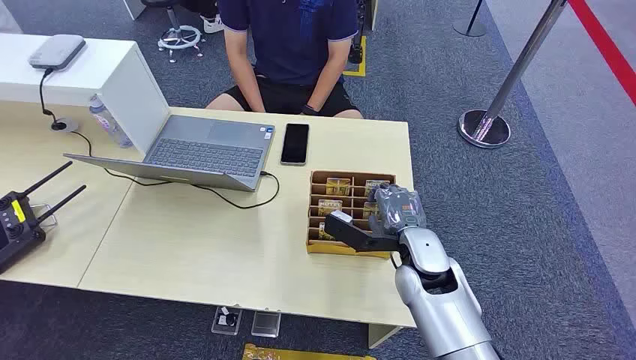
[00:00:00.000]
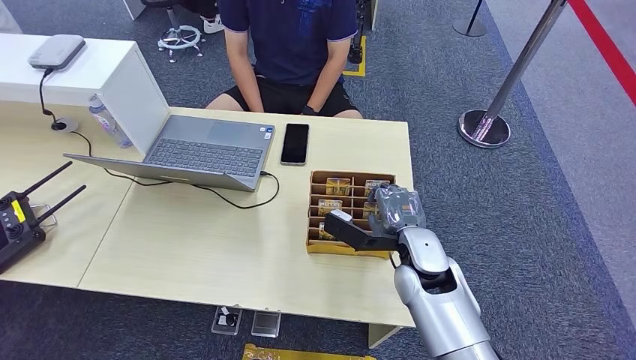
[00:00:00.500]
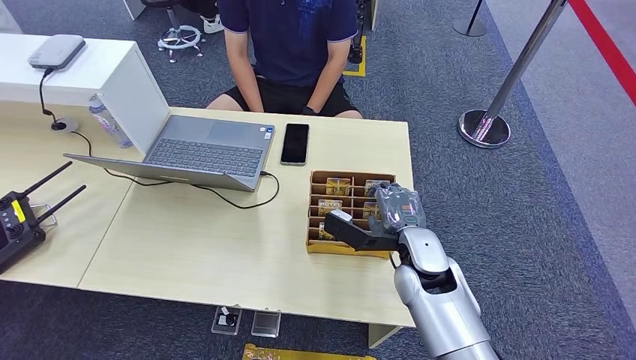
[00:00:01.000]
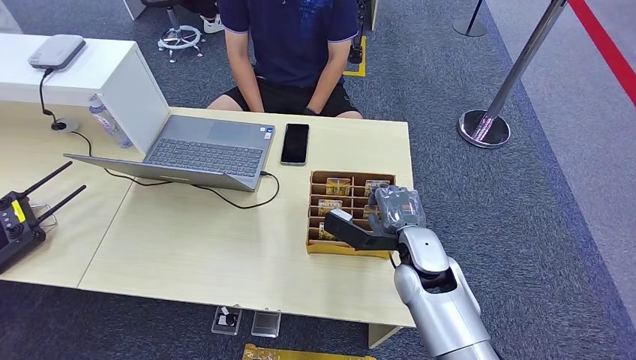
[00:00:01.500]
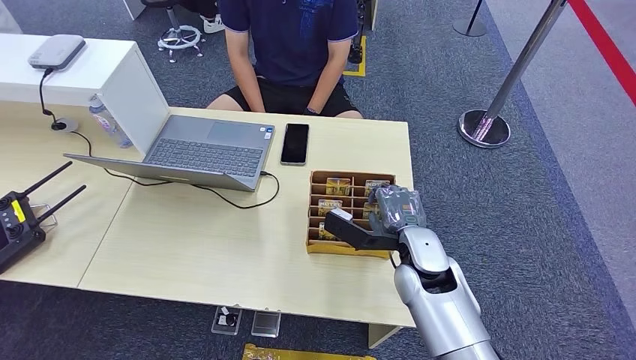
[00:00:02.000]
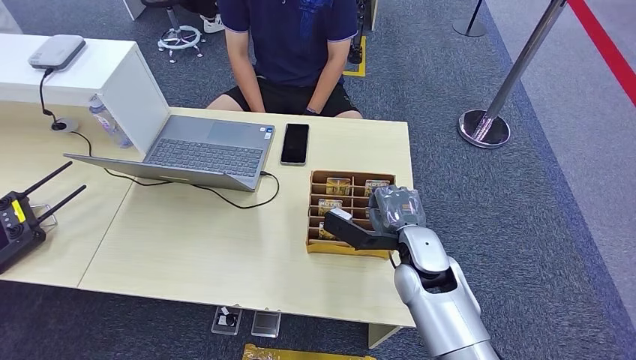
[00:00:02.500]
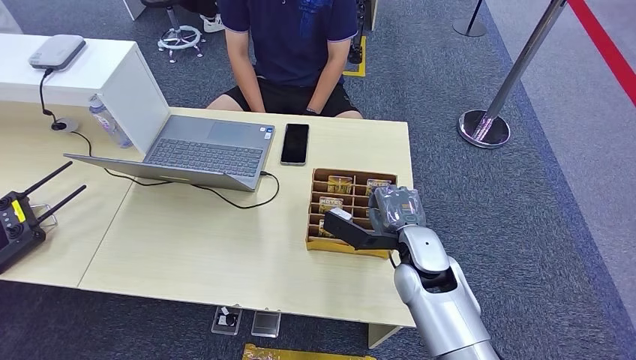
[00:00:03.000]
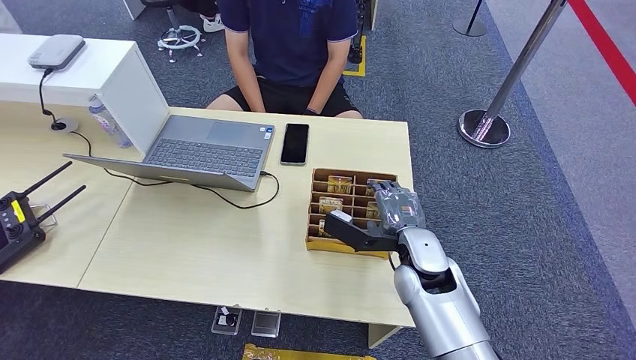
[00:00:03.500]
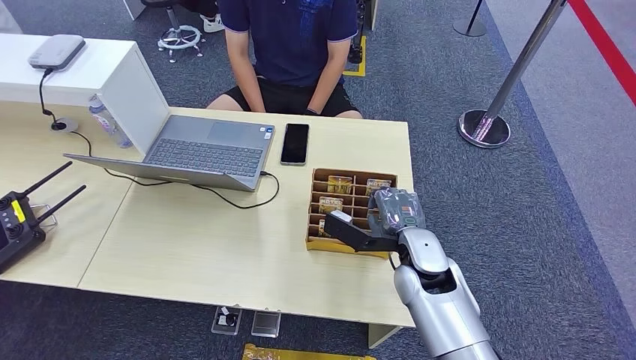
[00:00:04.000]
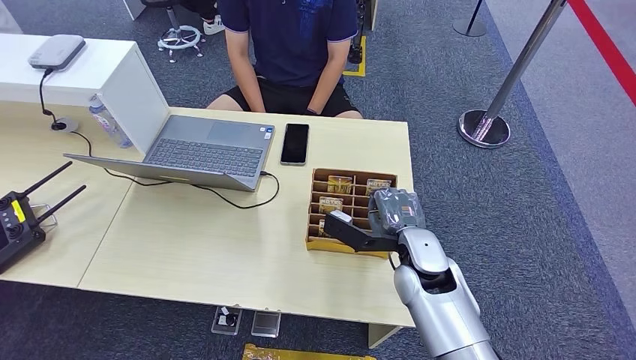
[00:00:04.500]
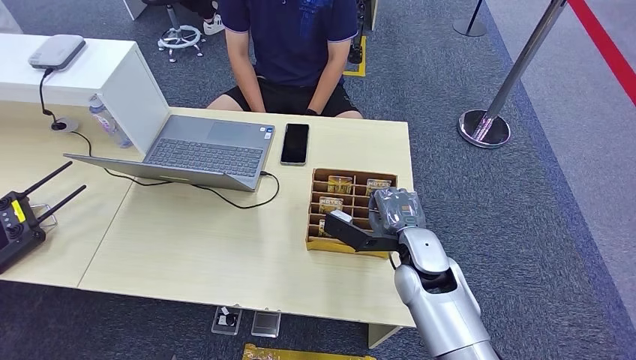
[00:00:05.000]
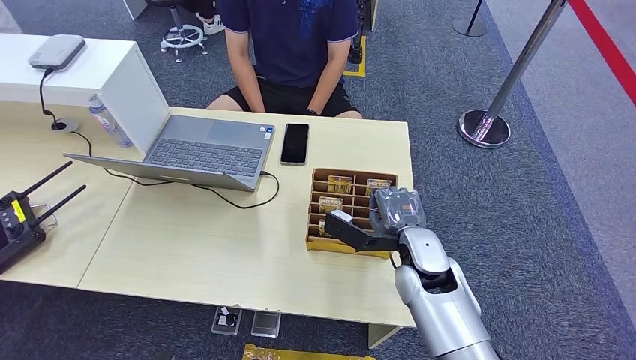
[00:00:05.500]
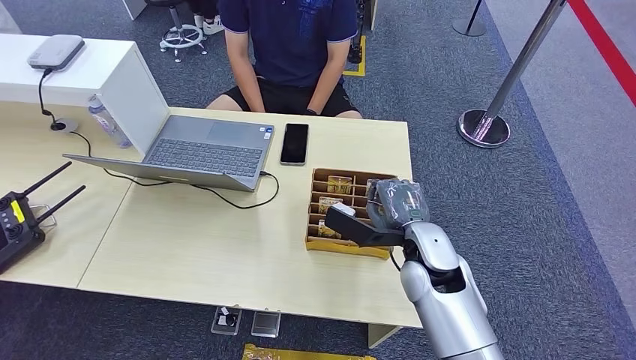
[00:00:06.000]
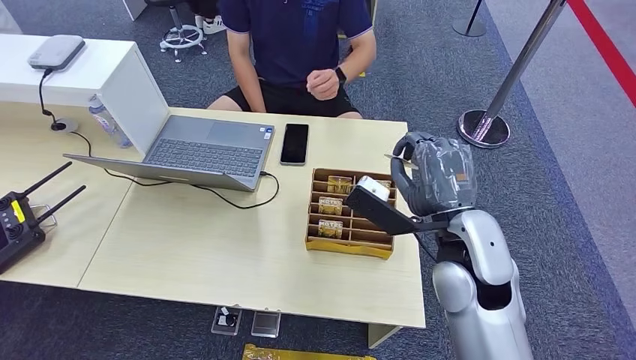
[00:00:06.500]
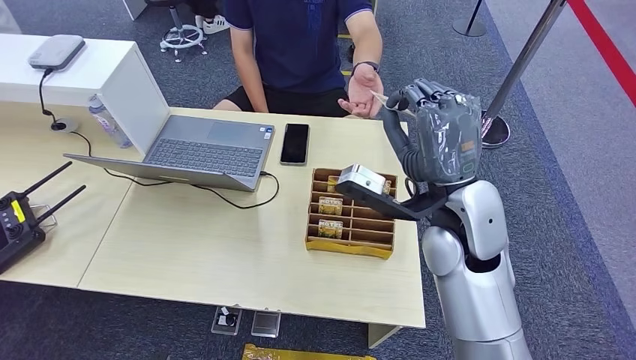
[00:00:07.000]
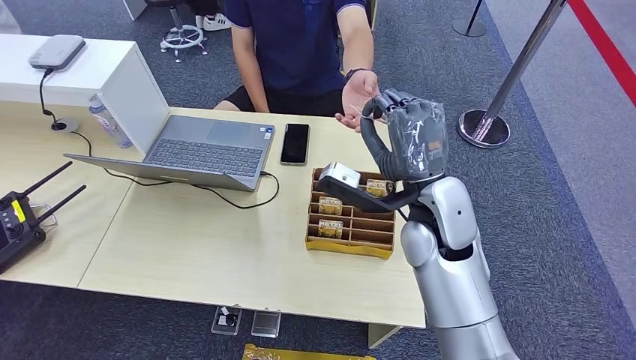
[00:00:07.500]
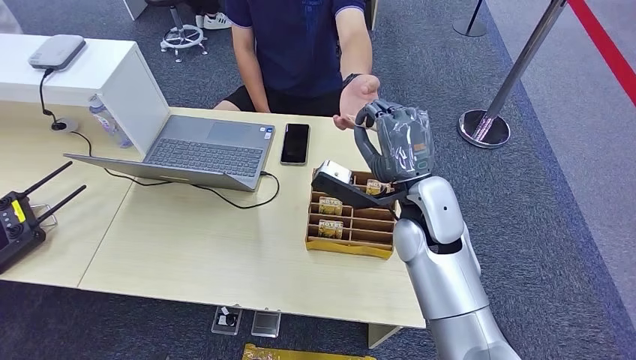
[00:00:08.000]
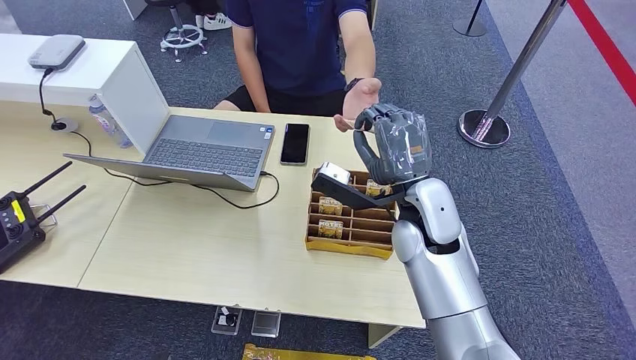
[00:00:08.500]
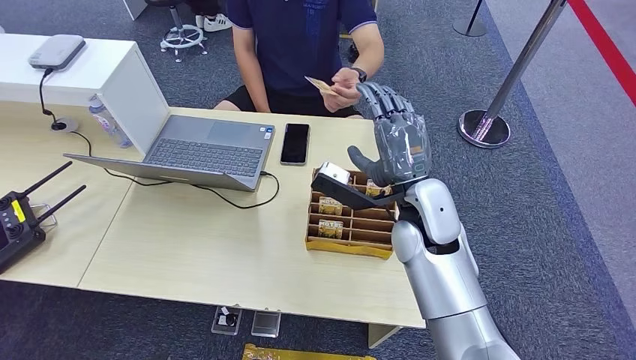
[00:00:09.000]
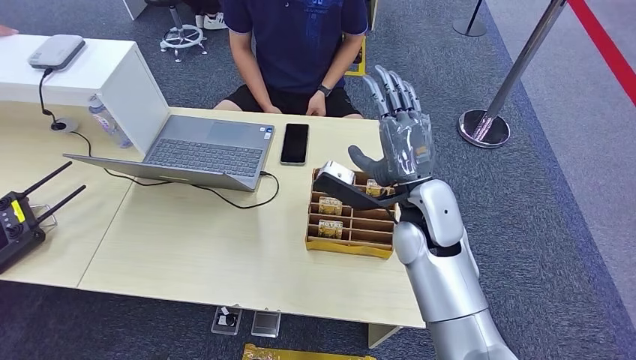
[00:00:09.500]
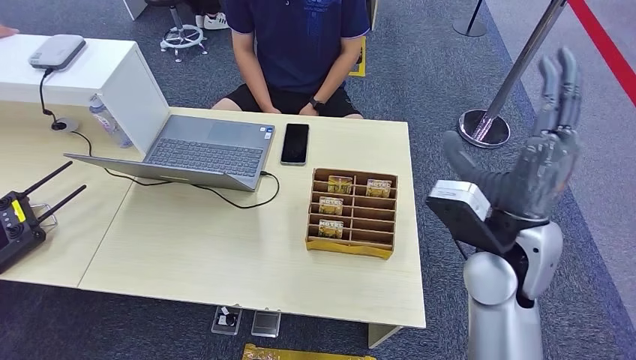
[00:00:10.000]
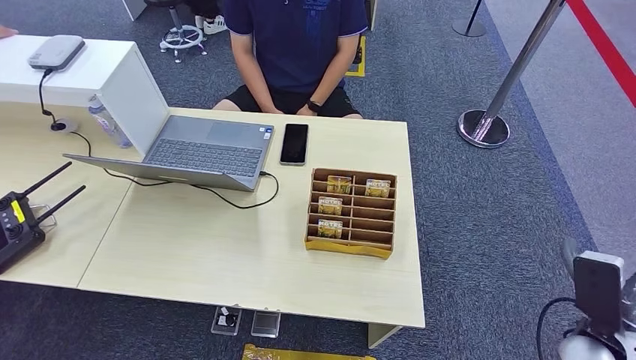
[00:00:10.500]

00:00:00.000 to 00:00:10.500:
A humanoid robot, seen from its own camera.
Step, 00:00:00.000 to 00:00:06.000: Pick up the room card from the card holder.
Step, 00:00:06.500 to 00:00:10.500: Hand the room card to the target.
00:00:02.000 to 00:00:04.000: Neither hand changes place.
00:00:04.000 to 00:00:06.500: The right hand heads upward, covering roughly 10 cm.
00:00:06.500 to 00:00:08.500: The right hand is displaced forward by roughly 5 cm.
00:00:08.500 to 00:00:10.500: The right hand heads to the right and backward, covering about 30 cm.
